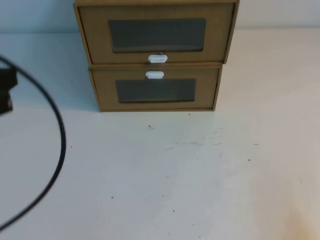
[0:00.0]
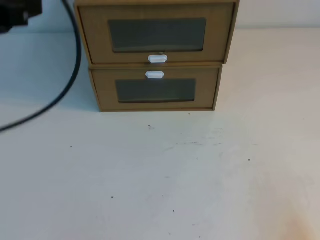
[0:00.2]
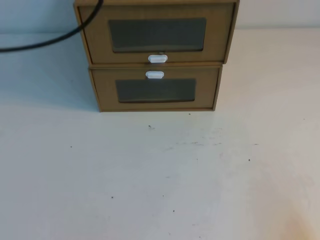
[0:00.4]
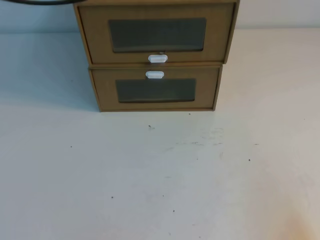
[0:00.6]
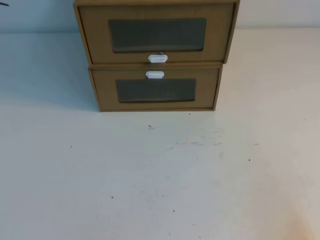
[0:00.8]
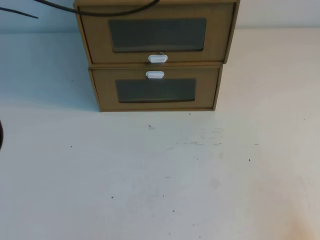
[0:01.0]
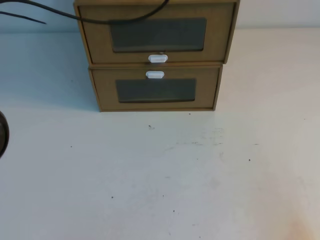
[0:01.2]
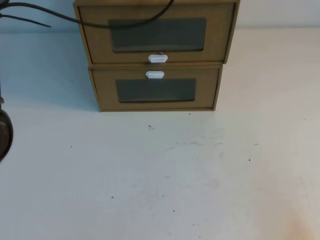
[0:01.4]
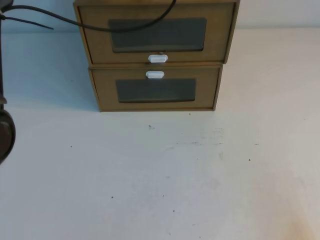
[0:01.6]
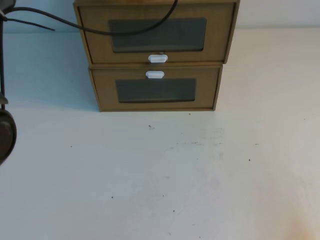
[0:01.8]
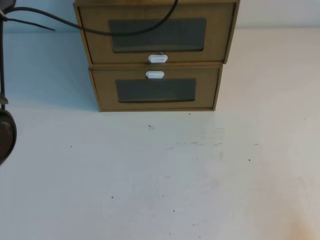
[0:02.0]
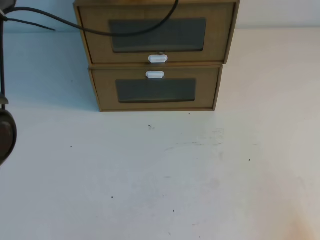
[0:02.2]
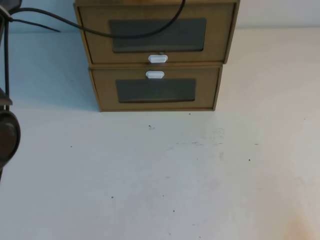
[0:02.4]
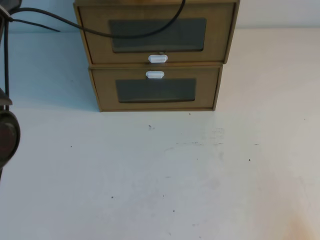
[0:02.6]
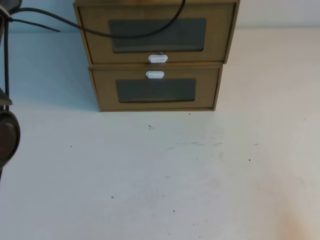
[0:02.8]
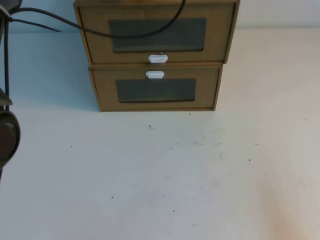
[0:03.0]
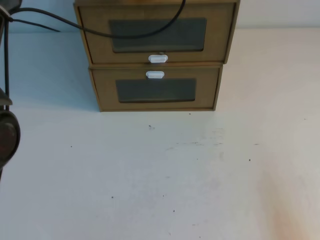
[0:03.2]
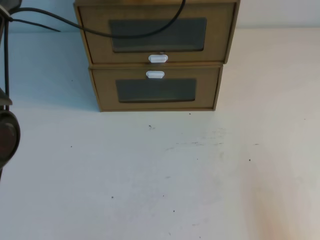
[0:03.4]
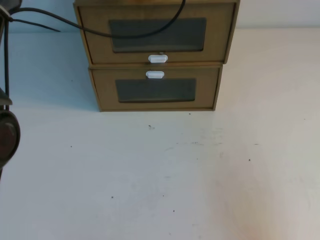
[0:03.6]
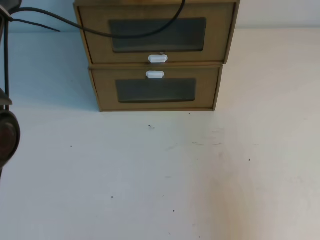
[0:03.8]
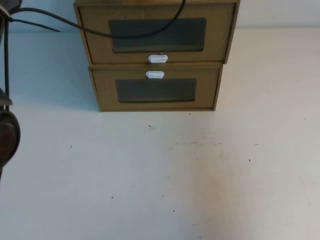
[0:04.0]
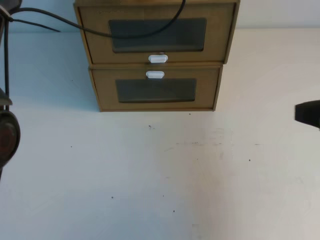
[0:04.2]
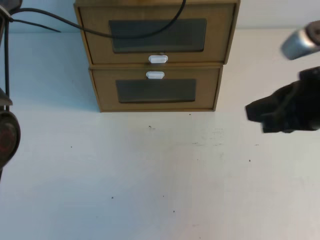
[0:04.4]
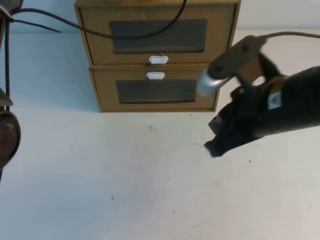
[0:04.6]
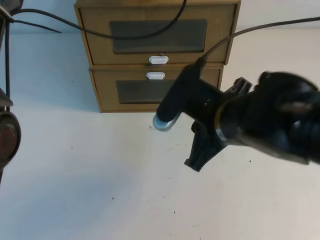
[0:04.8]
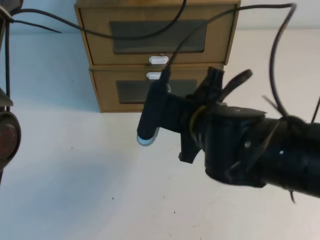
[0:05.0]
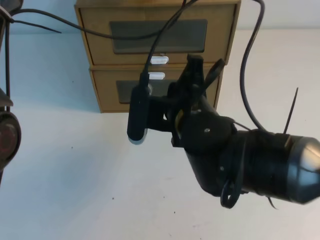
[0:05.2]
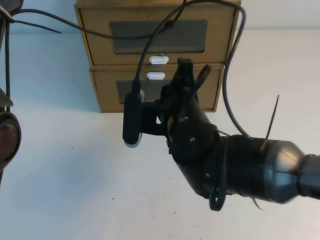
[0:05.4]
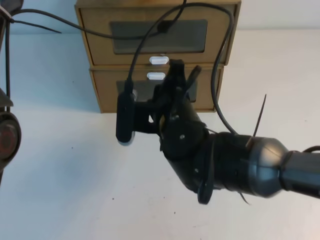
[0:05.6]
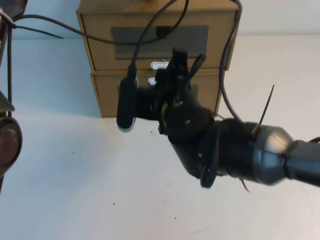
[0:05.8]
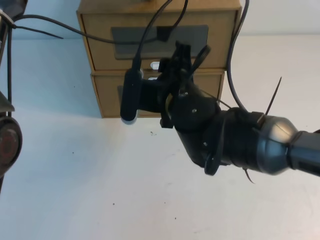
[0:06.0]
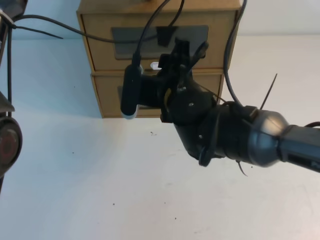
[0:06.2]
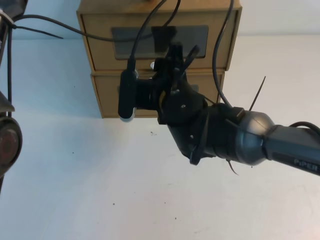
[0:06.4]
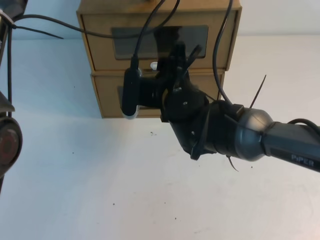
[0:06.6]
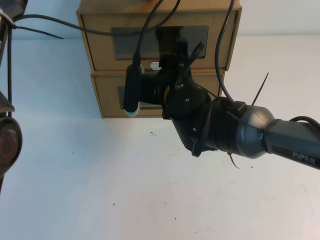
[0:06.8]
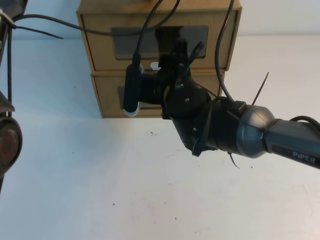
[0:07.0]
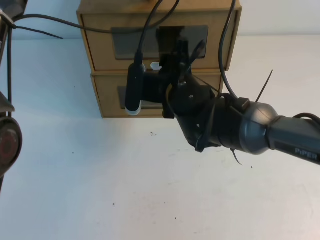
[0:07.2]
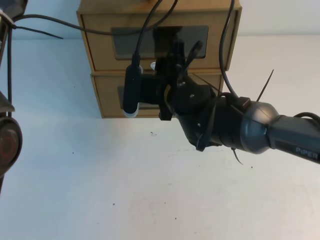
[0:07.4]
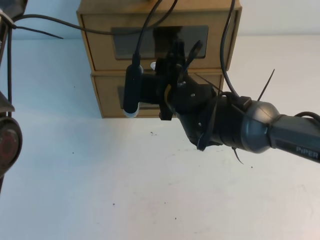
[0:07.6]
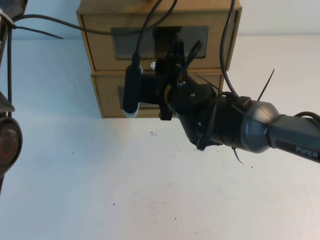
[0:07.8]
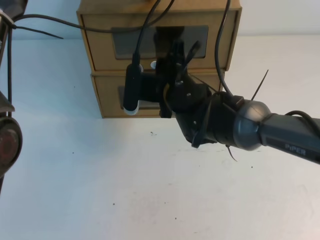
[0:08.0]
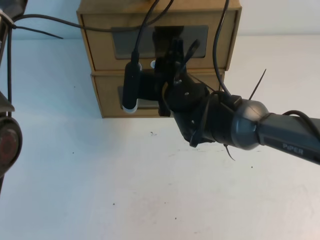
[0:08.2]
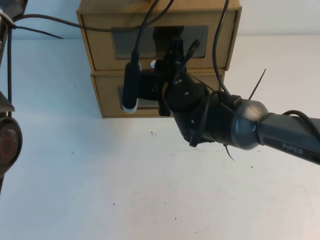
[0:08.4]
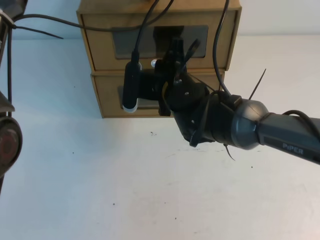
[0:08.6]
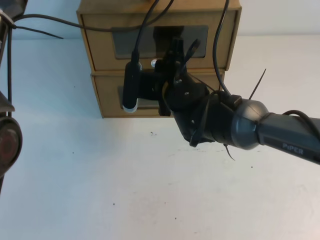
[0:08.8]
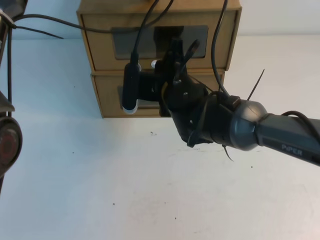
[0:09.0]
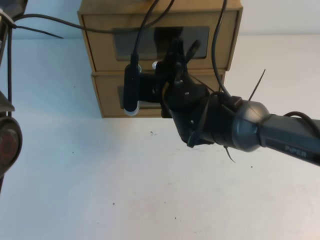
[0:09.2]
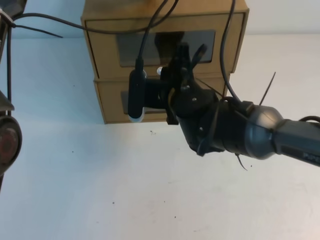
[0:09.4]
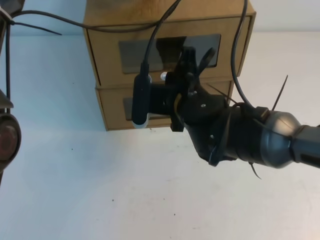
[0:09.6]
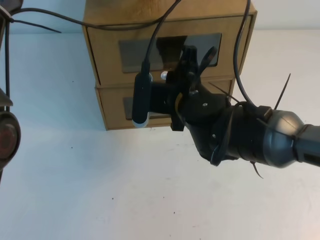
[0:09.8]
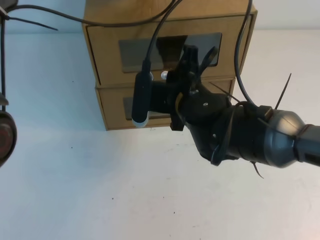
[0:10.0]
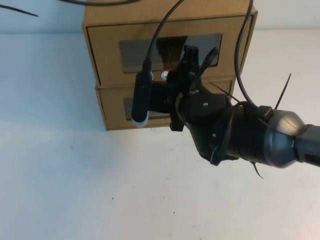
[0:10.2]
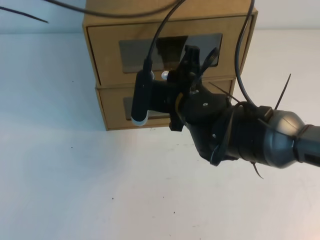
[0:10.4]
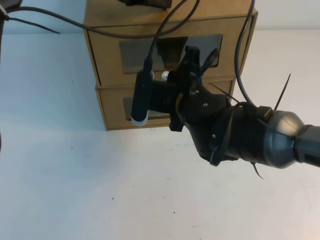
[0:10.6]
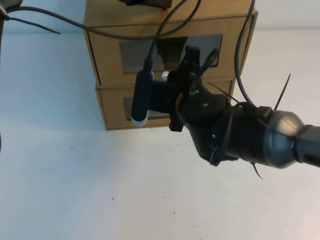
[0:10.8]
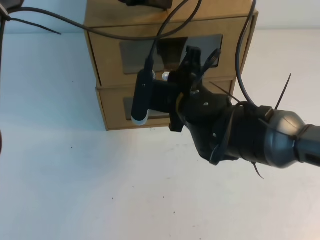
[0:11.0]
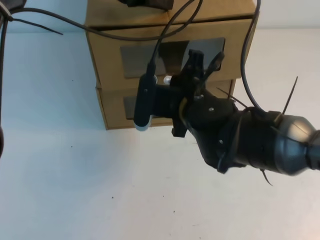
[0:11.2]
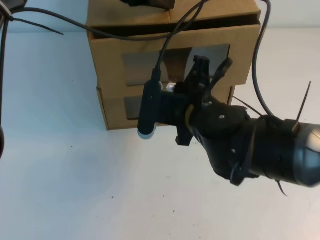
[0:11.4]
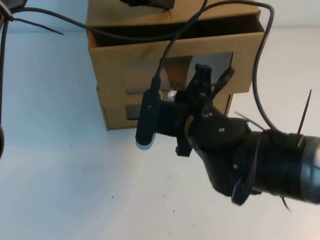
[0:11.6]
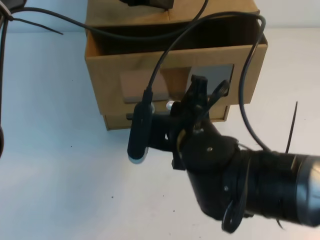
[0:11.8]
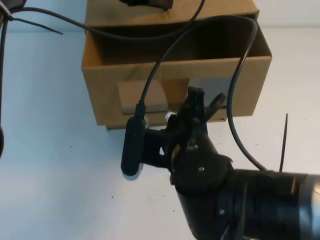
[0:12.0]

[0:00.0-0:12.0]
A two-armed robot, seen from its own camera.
Task of the whole recording: open the shoebox on the table.
0:00.0 to 0:01.6: The left gripper goes some 35 cm forward and to the right.
0:03.0 to 0:04.4: The right gripper heads forward, upward and to the left, covering approximately 25 cm.
0:04.4 to 0:06.0: The right gripper shifts about 20 cm to the left and forward, and opens.
0:06.0 to 0:07.6: There are only small adjustments of the grippers.
0:07.6 to 0:09.0: The right gripper closes up.
0:09.0 to 0:10.4: The right gripper shifts by roughly 5 cm. The left gripper shifts by some 5 cm.
0:10.4 to 0:12.0: The right gripper heads backward, covering approximately 10 cm.

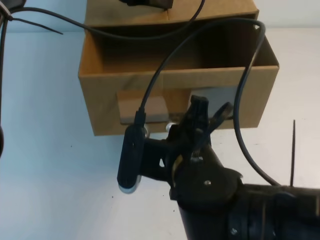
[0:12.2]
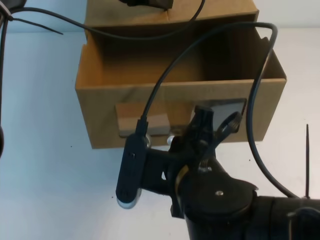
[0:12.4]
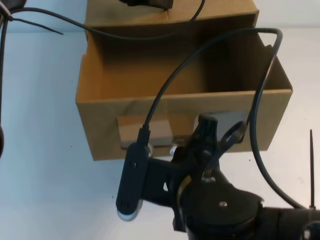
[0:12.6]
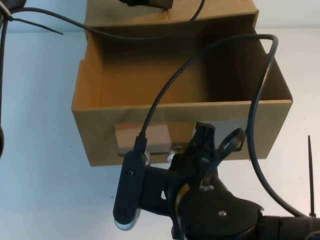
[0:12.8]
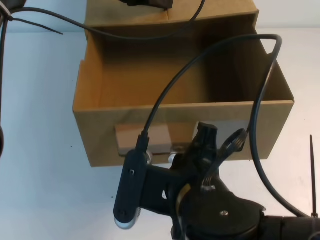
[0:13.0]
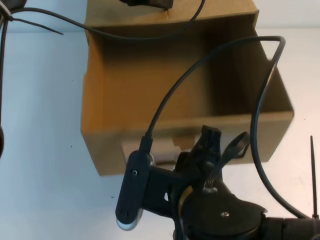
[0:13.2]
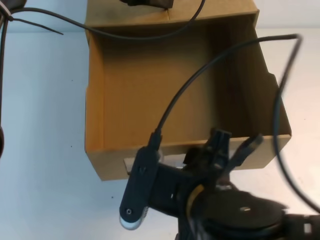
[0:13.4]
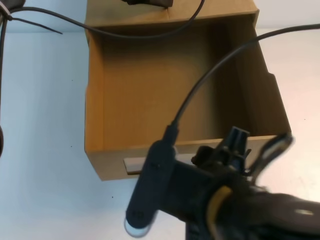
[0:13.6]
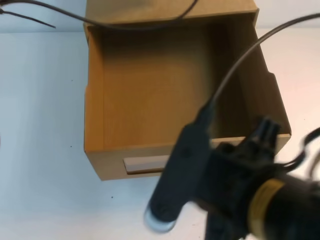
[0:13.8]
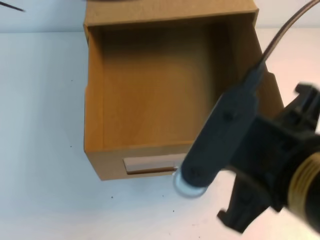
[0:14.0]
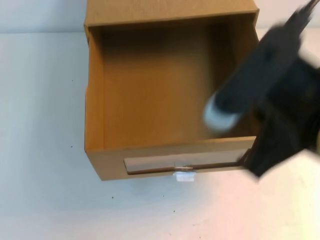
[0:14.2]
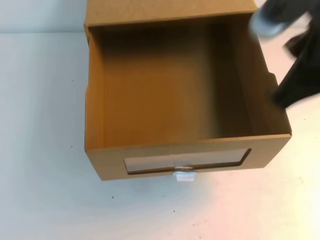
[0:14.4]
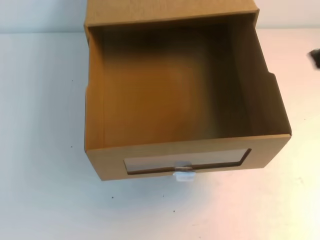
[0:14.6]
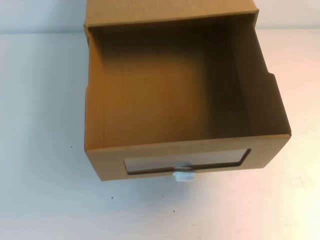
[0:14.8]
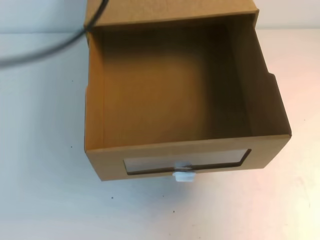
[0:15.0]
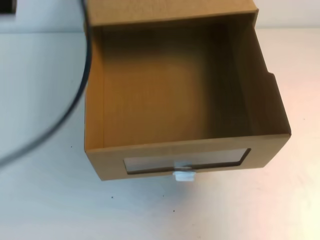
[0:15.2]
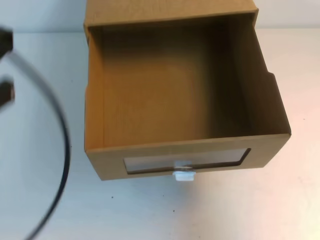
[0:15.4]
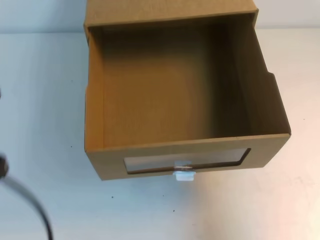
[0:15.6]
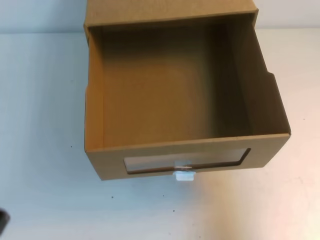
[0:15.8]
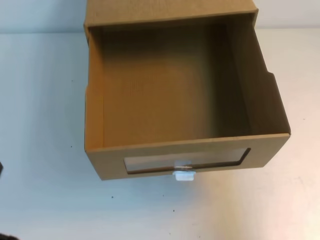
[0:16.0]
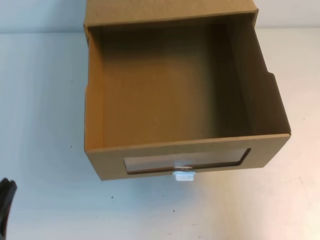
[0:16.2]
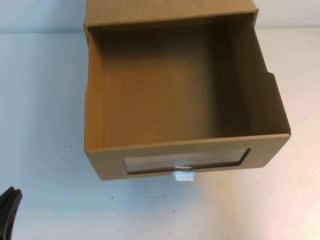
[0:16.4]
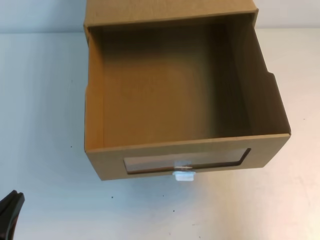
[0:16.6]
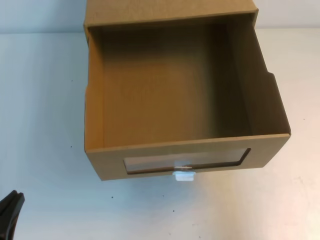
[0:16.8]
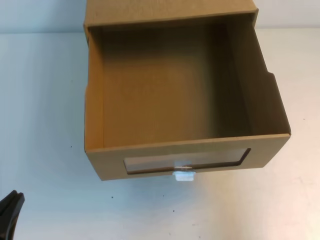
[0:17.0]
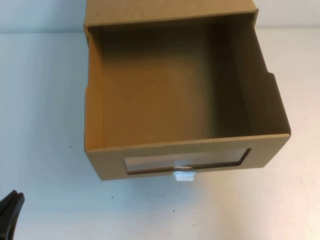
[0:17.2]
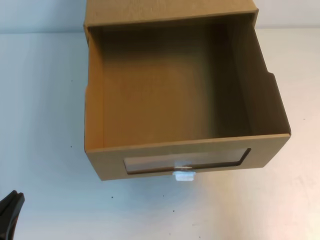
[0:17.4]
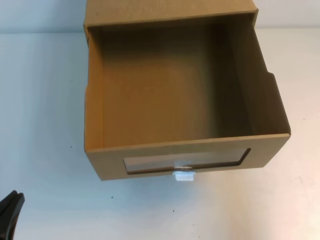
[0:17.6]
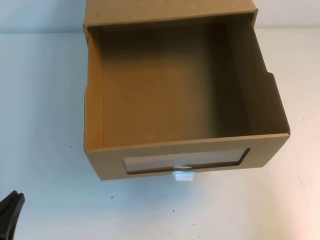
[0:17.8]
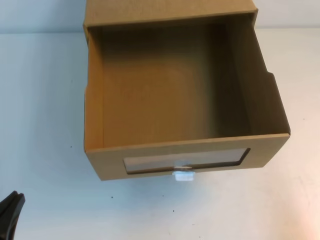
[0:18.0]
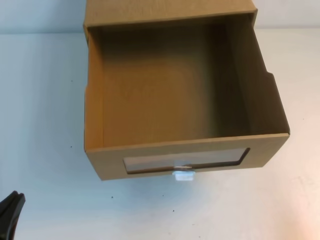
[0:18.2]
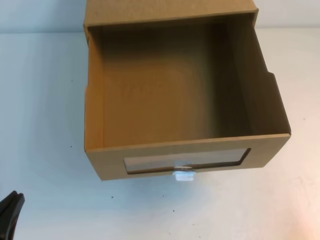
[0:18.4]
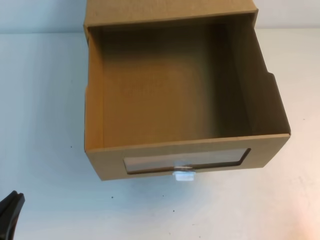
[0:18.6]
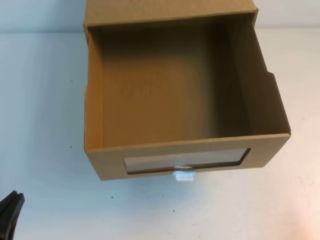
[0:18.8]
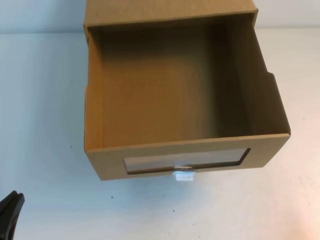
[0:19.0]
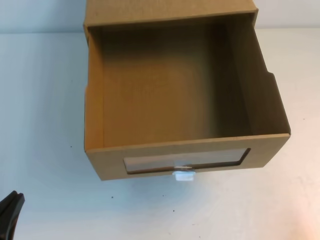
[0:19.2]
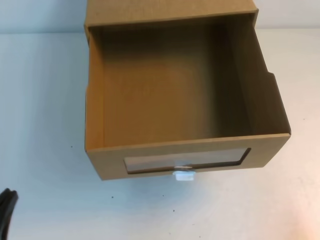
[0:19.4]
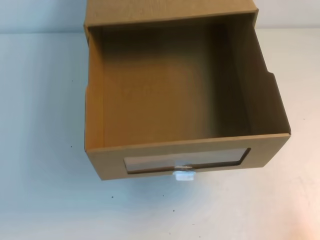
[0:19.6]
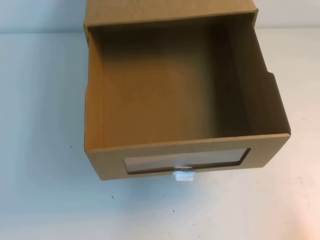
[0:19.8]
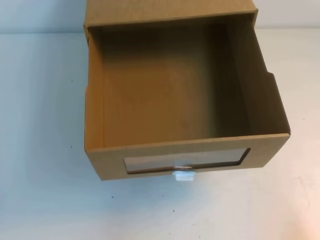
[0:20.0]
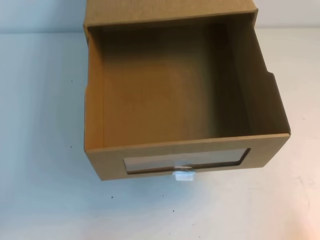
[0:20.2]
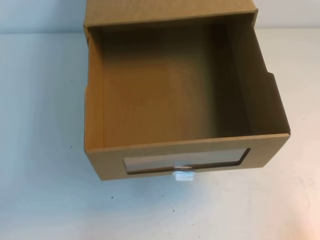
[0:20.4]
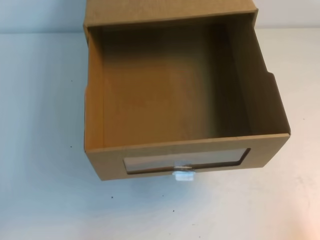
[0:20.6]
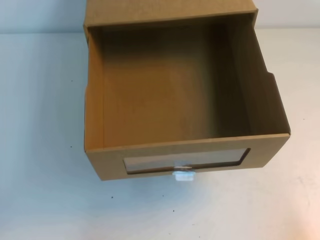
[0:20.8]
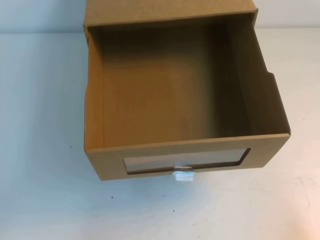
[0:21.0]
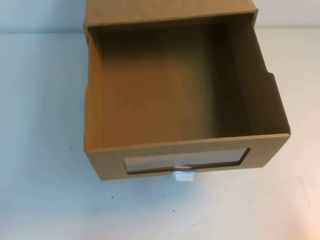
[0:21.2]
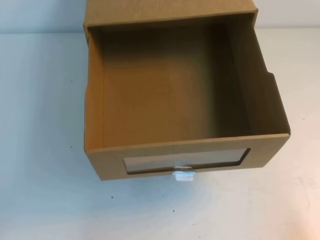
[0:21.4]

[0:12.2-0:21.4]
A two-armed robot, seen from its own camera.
Task of the whole recording: open the shoebox on the table.
Step, 0:12.2 to 0:21.4: Open the shoe box.
0:12.2 to 0:13.8: The right gripper shifts approximately 10 cm backward, upward and to the right, and opens up.
0:13.8 to 0:15.2: The right gripper travels to the right and forward by roughly 25 cm, and closes its fingers; the left gripper moves backward and to the left, some 25 cm.
0:15.2 to 0:16.8: The left gripper moves downward, roughly 30 cm; the right gripper moves backward and downward, approximately 15 cm.
0:16.8 to 0:18.4: The right gripper shifts some 15 cm downward.
0:18.4 to 0:19.8: There are only small adjustments of the grippers.

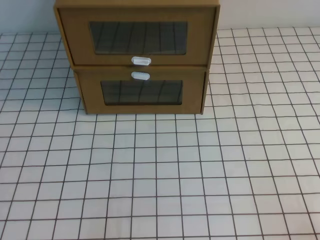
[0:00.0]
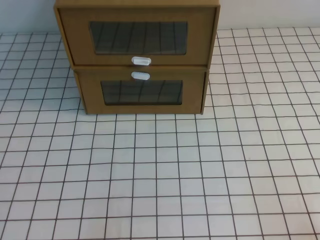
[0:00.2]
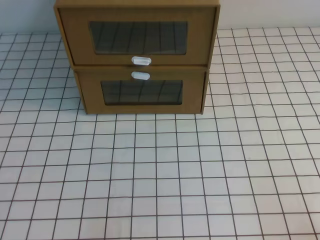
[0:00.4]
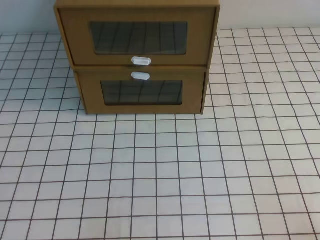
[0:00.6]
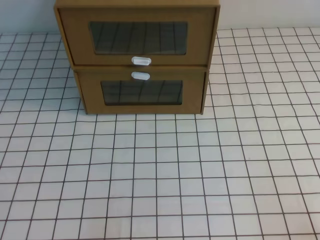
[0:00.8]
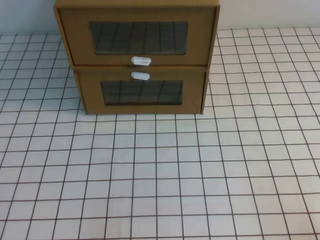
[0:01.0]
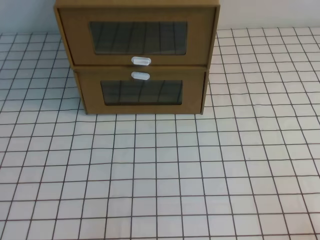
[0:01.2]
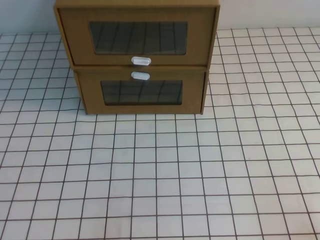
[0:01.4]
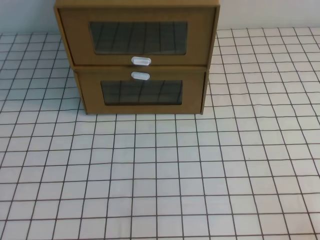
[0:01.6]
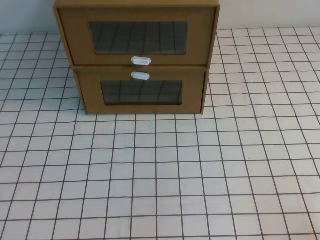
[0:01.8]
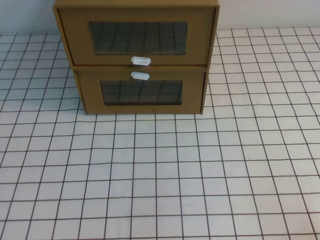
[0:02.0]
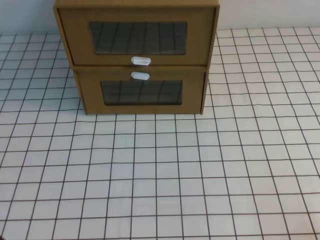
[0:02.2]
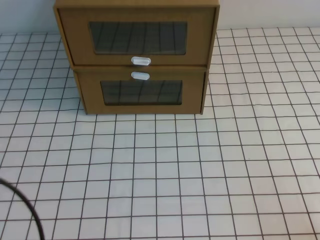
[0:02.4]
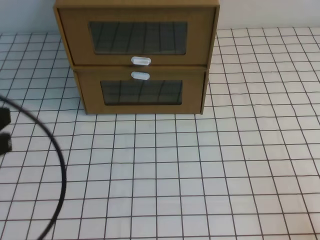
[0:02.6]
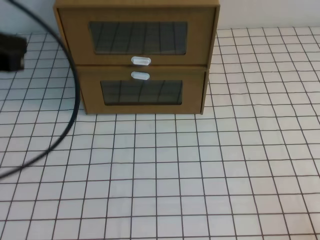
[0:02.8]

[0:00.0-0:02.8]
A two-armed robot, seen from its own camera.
Task of the whole recording: open the shoebox on the white tablecloth.
0:01.4 to 0:02.8: The left gripper heads upward and forward, covering about 25 cm.
